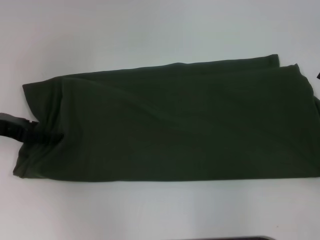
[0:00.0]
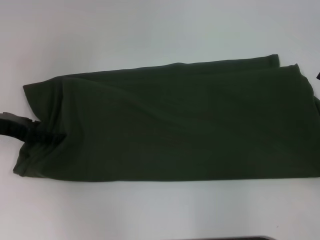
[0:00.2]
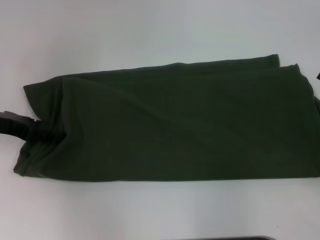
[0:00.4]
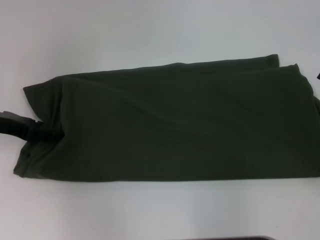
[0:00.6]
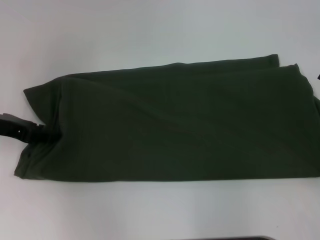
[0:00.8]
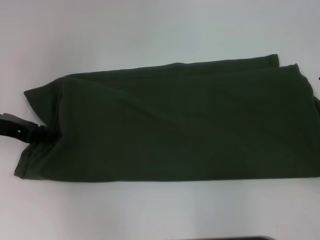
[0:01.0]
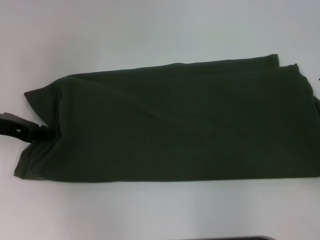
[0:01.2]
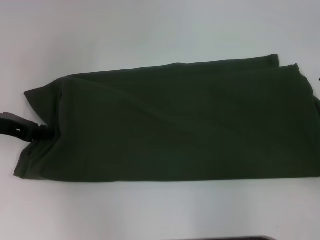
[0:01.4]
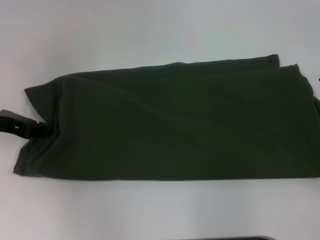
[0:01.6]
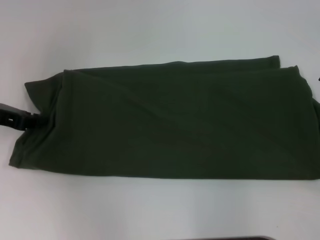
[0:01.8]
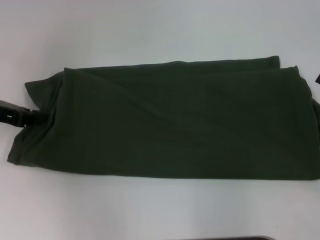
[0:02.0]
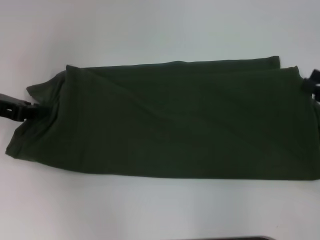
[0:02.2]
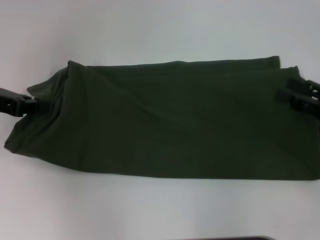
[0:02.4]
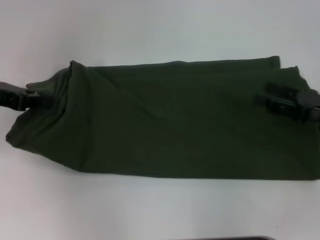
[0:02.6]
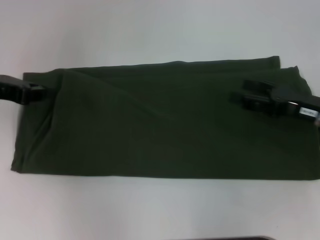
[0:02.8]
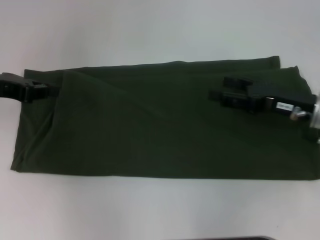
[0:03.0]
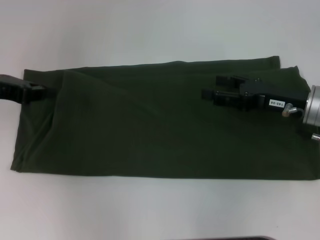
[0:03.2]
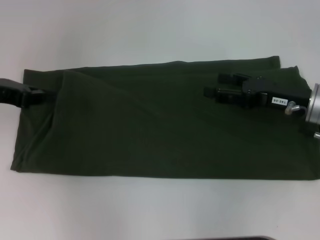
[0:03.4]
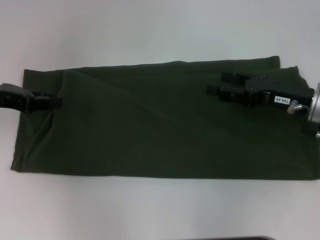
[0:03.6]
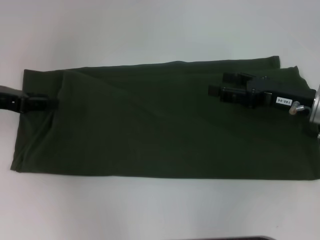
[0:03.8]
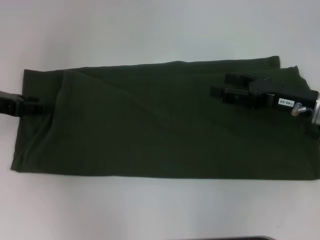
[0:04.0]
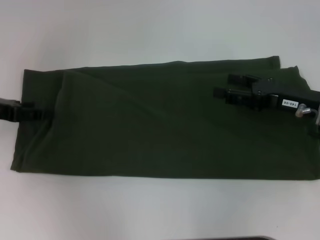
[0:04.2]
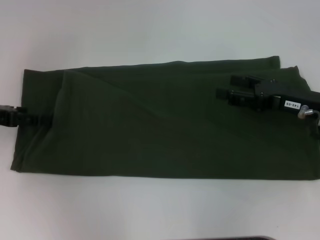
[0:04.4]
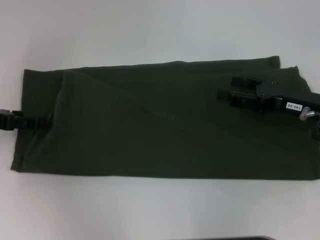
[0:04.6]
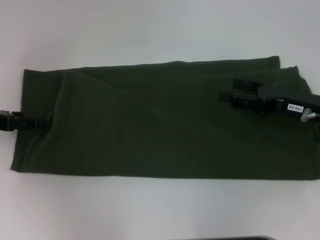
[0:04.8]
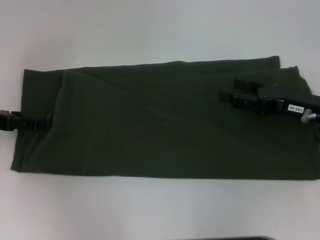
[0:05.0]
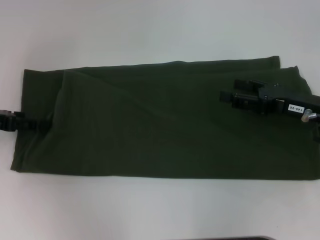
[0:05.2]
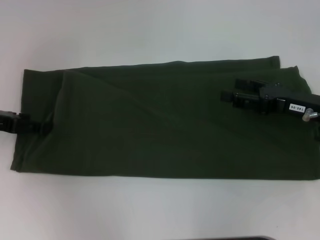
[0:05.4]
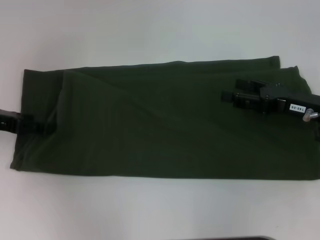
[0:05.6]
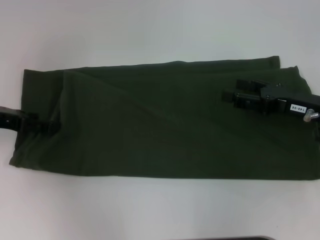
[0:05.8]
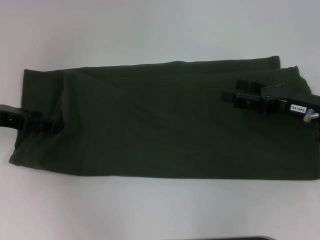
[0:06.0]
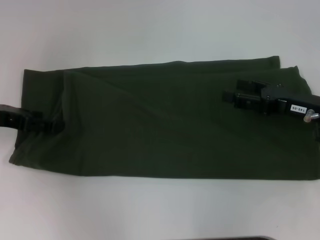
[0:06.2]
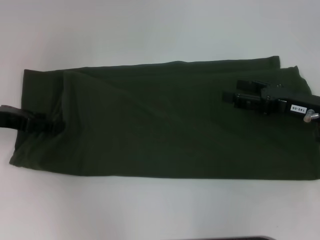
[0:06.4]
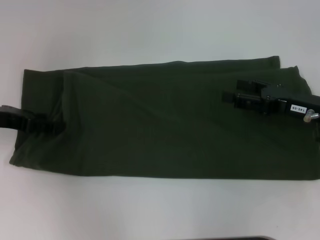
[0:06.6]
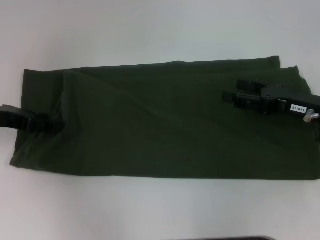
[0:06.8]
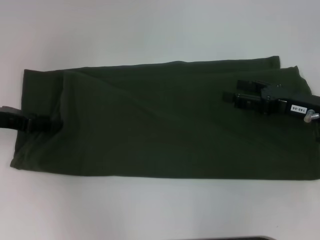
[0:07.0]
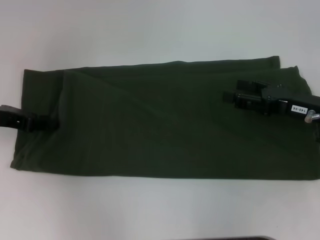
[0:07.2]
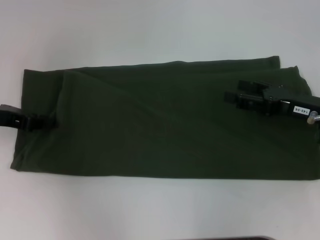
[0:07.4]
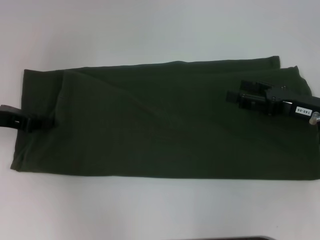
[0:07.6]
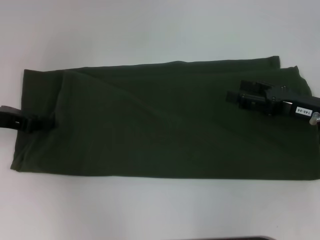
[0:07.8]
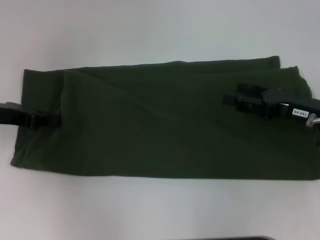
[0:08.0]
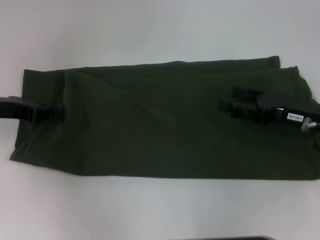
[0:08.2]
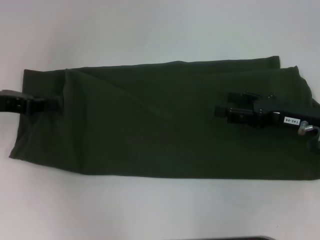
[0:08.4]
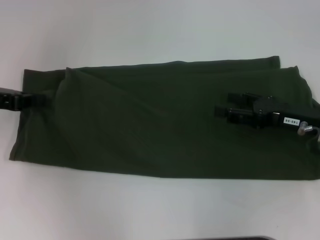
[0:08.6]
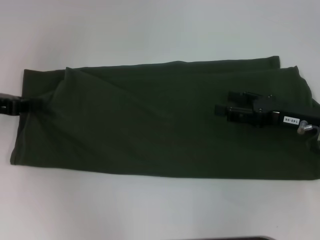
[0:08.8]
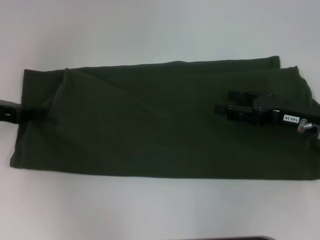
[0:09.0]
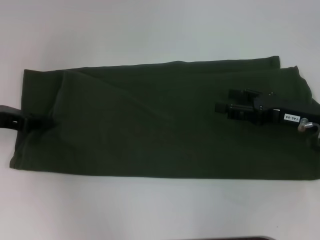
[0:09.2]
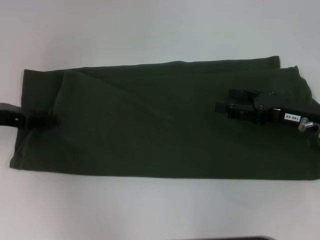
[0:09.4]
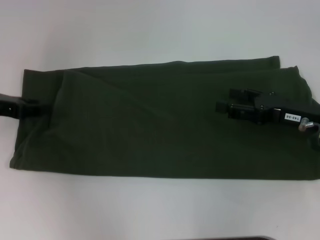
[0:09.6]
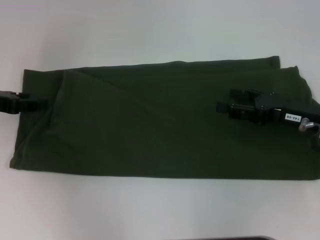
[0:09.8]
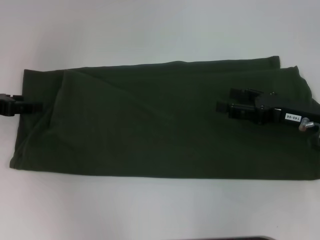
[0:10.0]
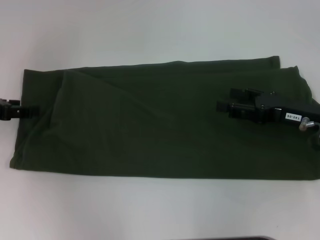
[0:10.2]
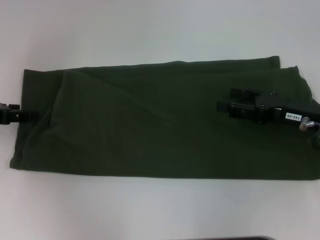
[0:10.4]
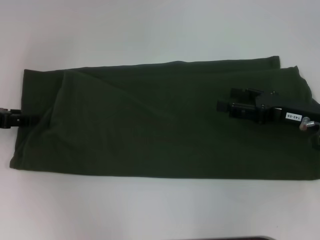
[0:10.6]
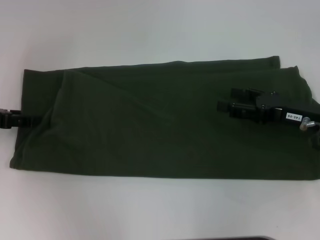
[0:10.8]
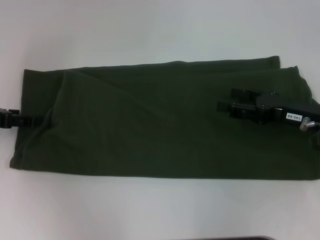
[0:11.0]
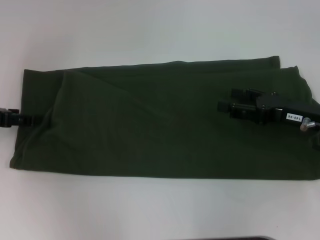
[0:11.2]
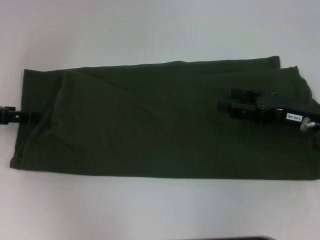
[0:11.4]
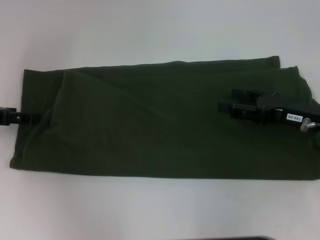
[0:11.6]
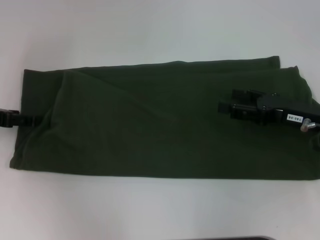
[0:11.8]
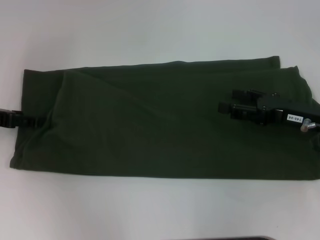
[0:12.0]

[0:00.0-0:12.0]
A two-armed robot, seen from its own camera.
0:00.0 to 0:01.6: The left gripper closes its fingers.
0:01.6 to 0:03.0: The right gripper heads to the left and forward, covering approximately 15 cm.
0:03.0 to 0:04.4: The left gripper changes place by approximately 5 cm, and opens.
0:04.4 to 0:06.0: The grippers move only a little.
0:07.6 to 0:09.0: The grippers stay close to where they were, moving slightly.
0:09.0 to 0:10.4: The left gripper opens its fingers.
0:10.4 to 0:12.0: Both grippers stay put.

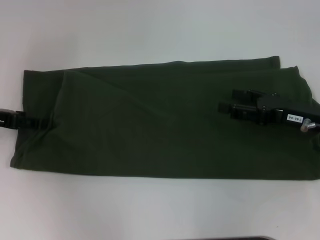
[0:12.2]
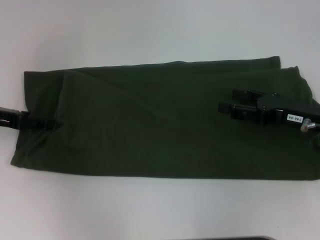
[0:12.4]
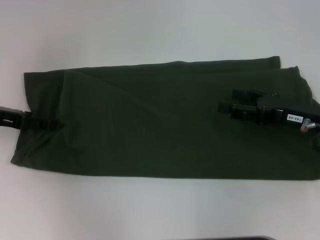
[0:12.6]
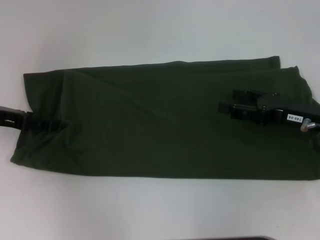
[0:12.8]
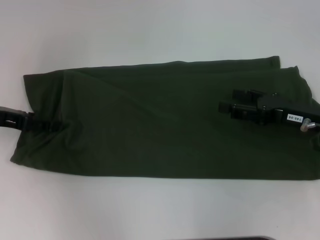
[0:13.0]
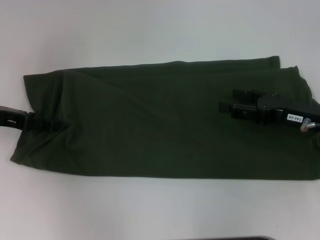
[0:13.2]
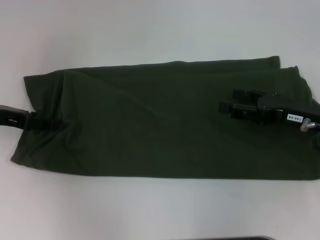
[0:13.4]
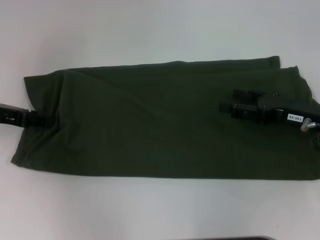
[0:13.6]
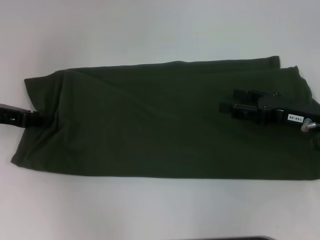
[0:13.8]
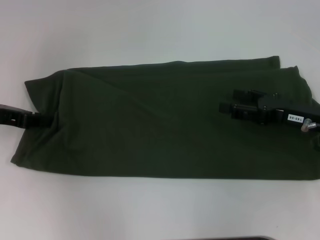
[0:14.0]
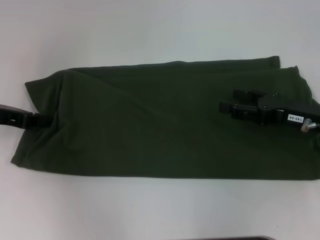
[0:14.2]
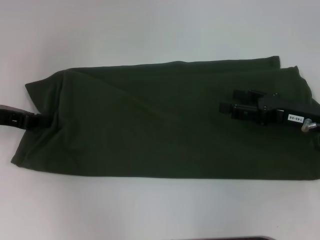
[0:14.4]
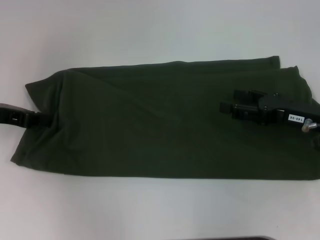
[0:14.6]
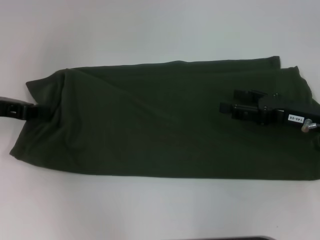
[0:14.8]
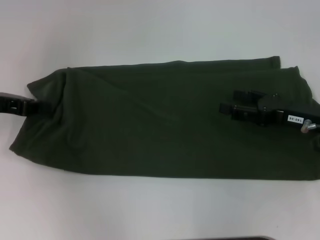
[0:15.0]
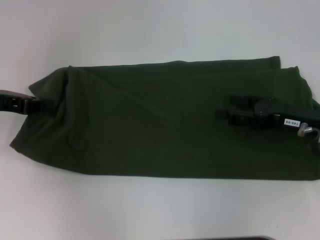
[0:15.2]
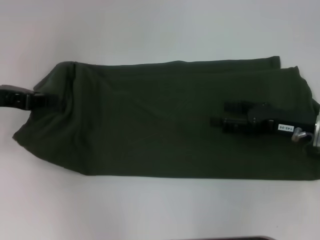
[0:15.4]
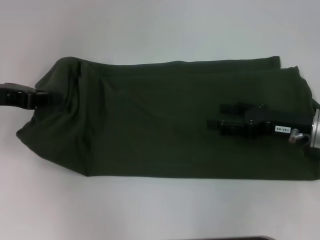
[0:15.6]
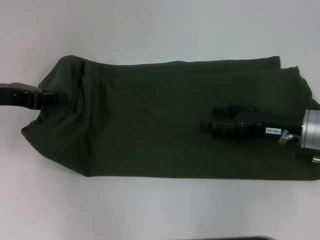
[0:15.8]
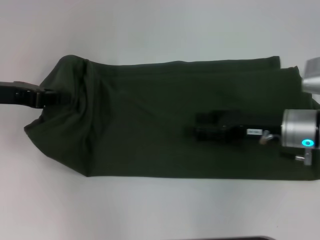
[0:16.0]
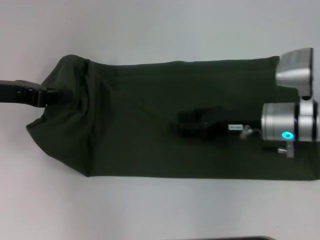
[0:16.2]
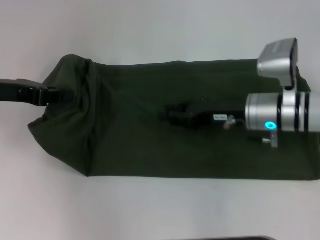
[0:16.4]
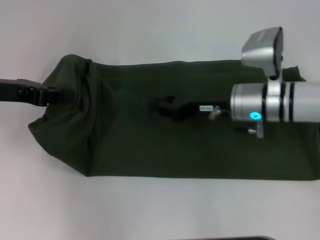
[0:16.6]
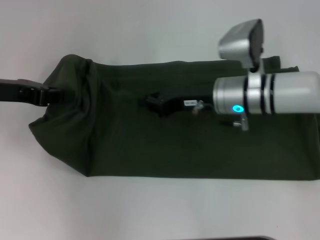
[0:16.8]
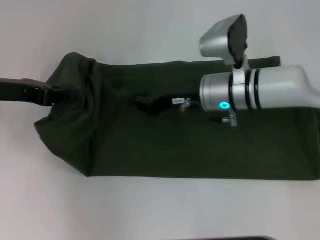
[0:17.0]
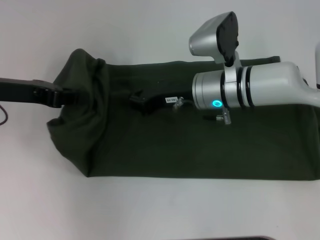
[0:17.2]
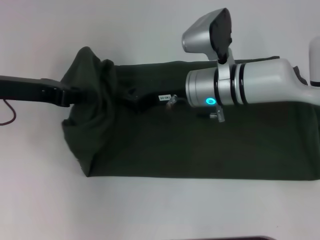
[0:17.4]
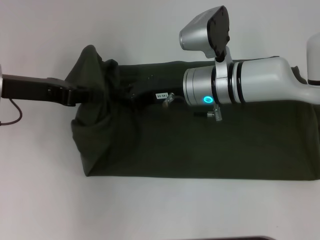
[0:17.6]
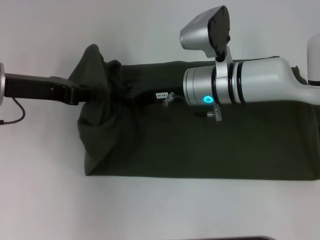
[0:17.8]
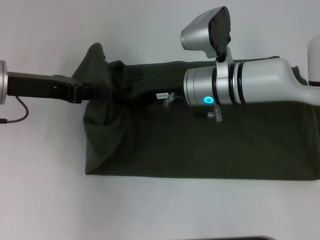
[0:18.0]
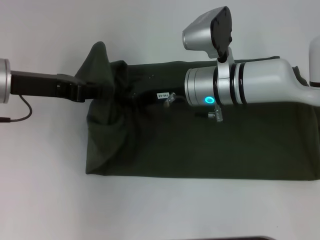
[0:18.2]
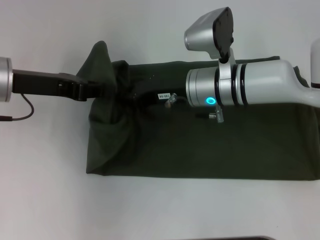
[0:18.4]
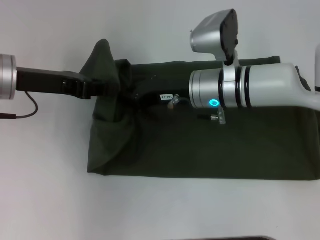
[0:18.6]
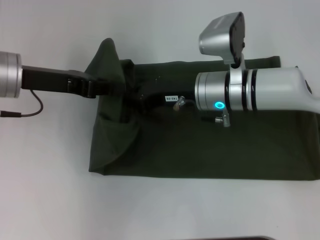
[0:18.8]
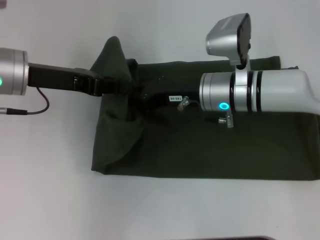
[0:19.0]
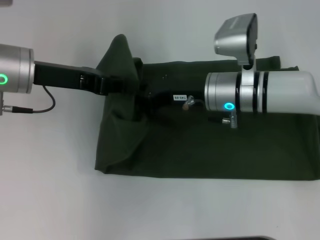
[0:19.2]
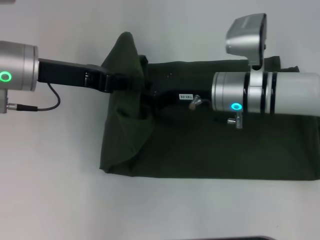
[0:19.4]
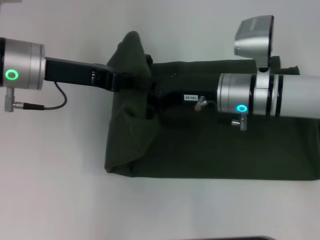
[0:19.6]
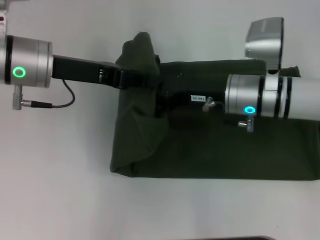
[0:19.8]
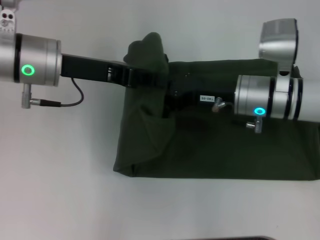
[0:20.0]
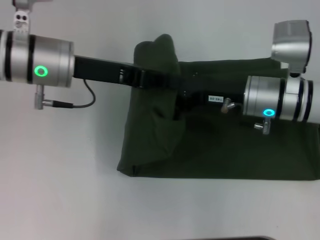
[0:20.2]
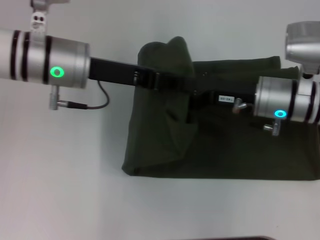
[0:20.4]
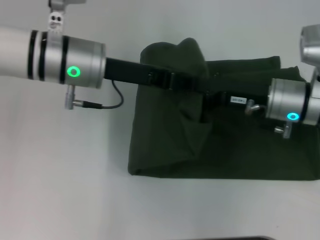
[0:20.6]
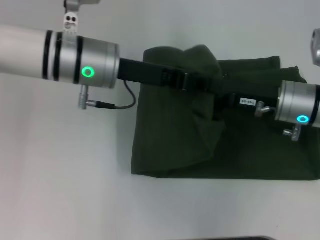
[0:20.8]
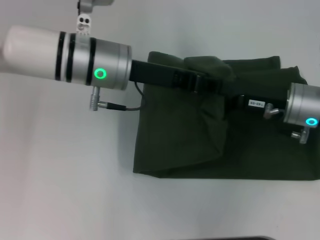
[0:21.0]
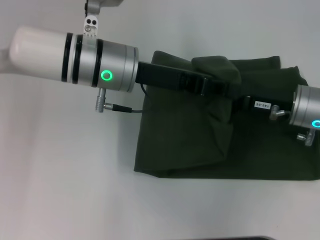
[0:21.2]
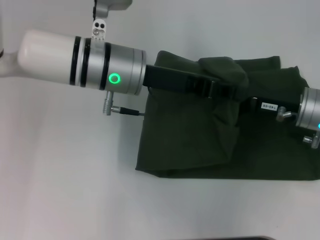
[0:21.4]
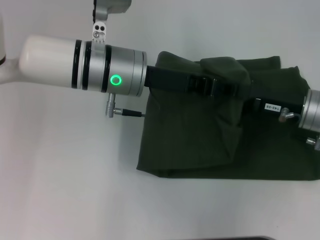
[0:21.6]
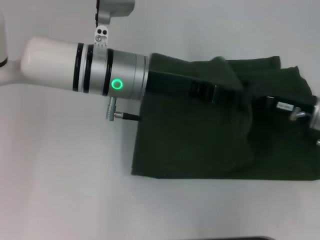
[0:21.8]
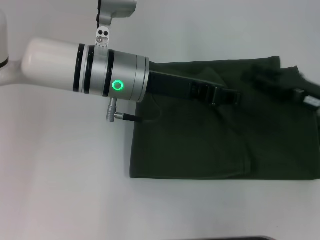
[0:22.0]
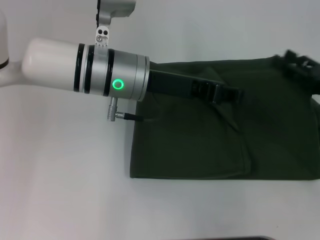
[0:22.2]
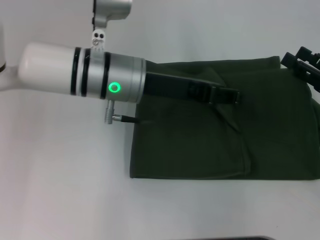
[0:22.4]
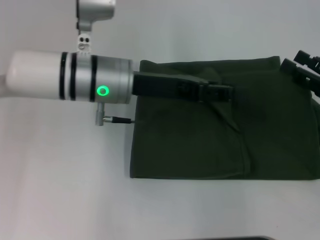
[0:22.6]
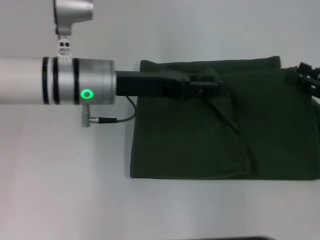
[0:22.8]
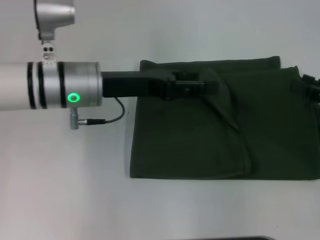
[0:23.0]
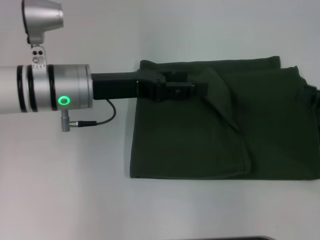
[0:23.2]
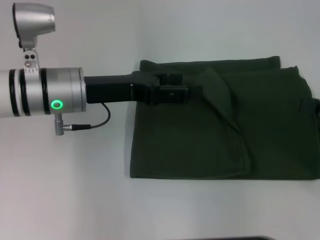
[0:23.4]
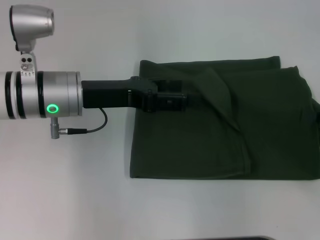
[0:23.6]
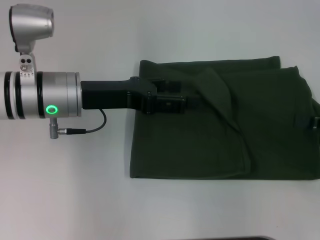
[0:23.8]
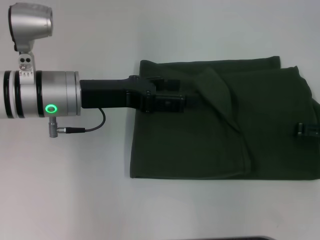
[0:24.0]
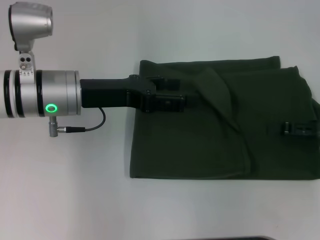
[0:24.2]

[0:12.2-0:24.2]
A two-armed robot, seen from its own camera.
0:12.2 to 0:13.8: The left gripper closes up.
0:13.8 to 0:15.2: The left gripper closes its fingers.
0:15.2 to 0:16.6: The right gripper goes some 15 cm to the left and forward, and closes.
0:16.6 to 0:18.2: The right gripper is displaced to the left by some 5 cm, and closes up.
0:18.2 to 0:19.8: The grippers both shift to the right by approximately 5 cm.
0:19.8 to 0:21.2: The two grippers go about 10 cm to the right.
0:21.2 to 0:22.6: The right gripper moves to the right and backward, about 10 cm, and opens up.
0:22.6 to 0:24.2: The left gripper moves to the left, roughly 5 cm, and opens up.
